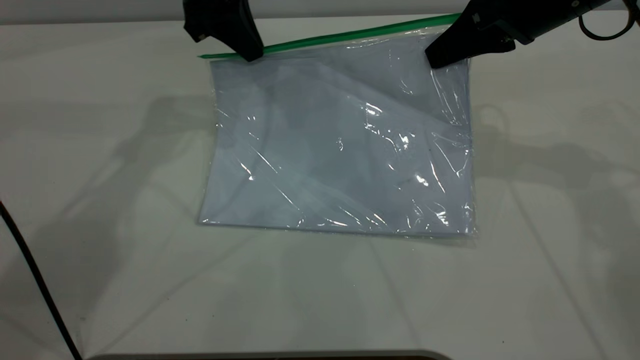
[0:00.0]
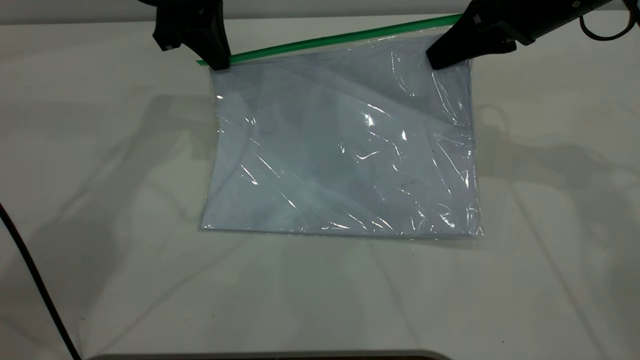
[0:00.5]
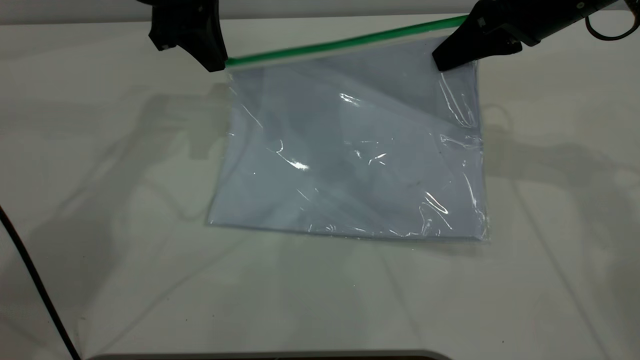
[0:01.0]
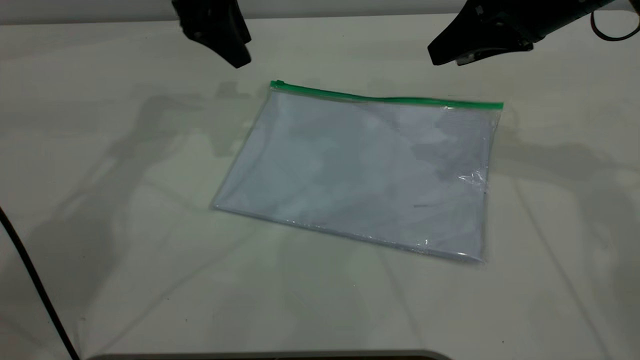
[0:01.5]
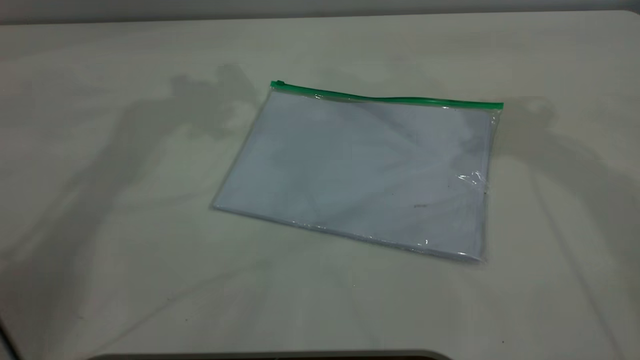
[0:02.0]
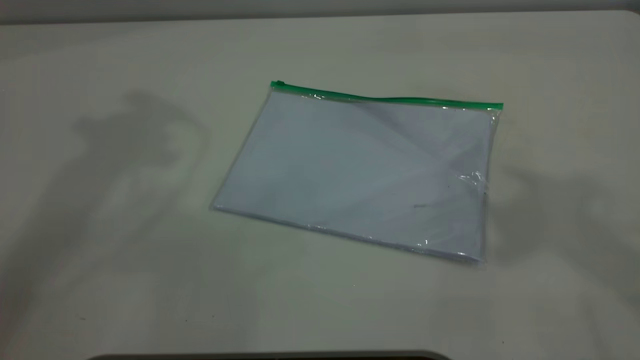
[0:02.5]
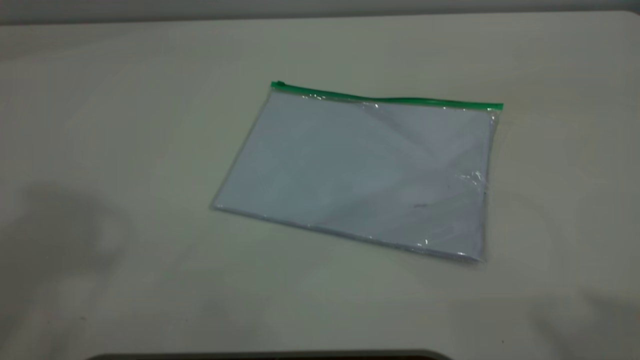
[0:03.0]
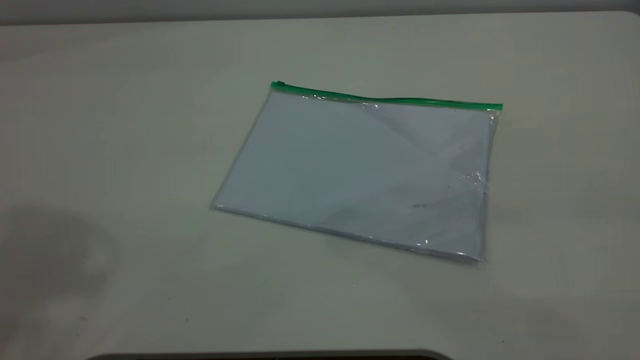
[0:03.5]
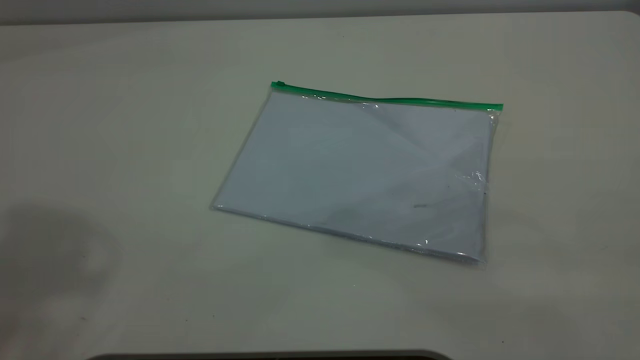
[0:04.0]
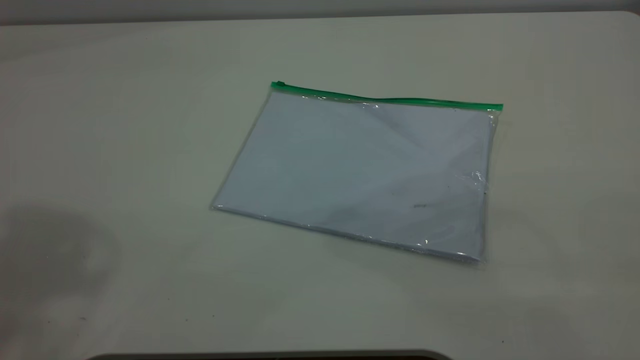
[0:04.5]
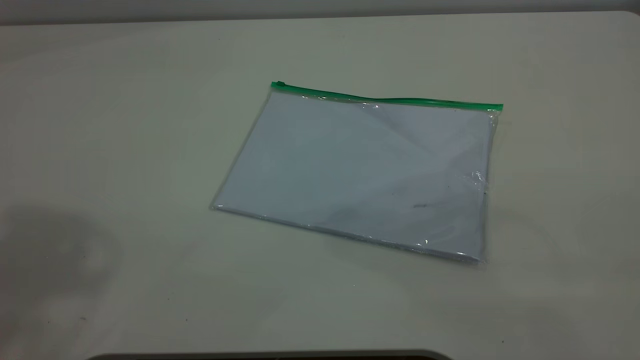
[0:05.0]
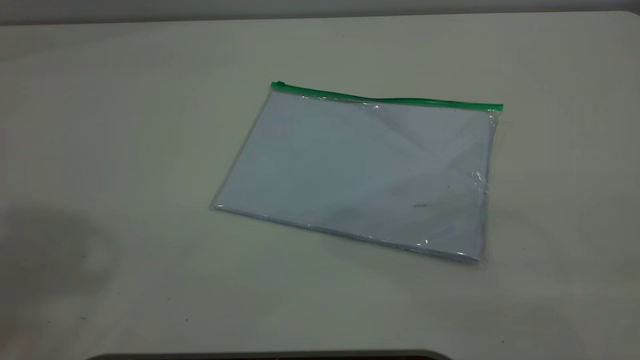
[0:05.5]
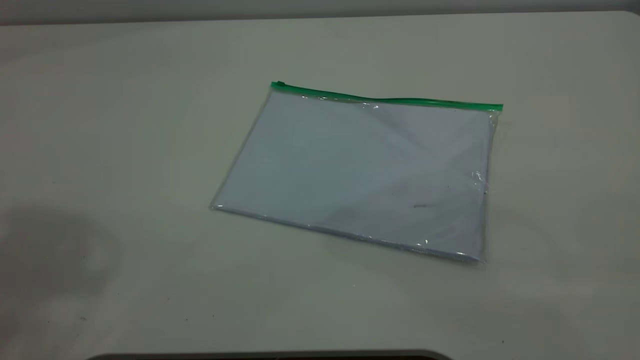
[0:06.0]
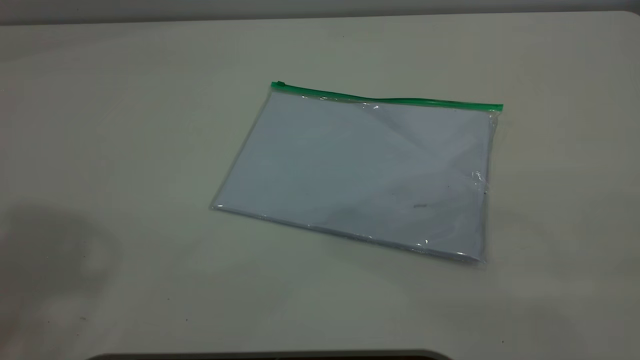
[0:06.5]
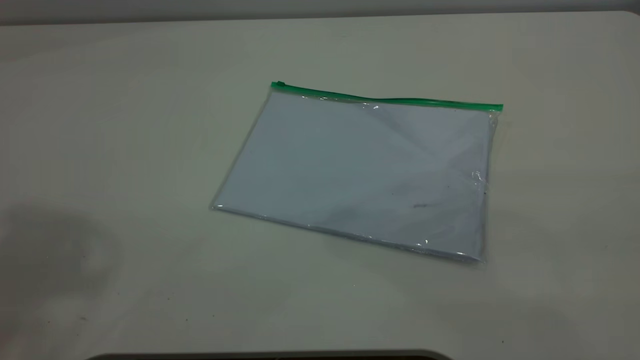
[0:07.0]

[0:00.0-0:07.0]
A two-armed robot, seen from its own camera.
Step, 0:01.5 to 0:02.0: Place the transparent plastic bag.
0:00.0 to 0:02.0: The grippers both shift upward by about 15 cm. The left gripper opens up. Meanwhile the right gripper opens up.
